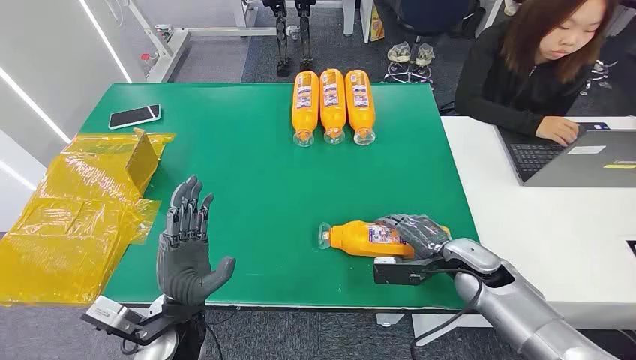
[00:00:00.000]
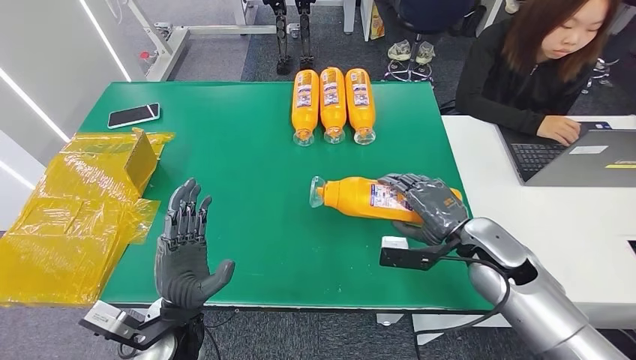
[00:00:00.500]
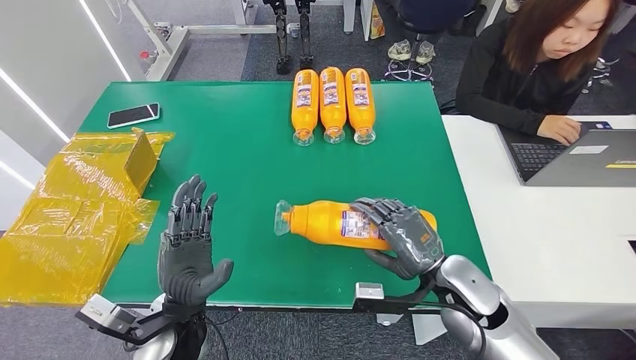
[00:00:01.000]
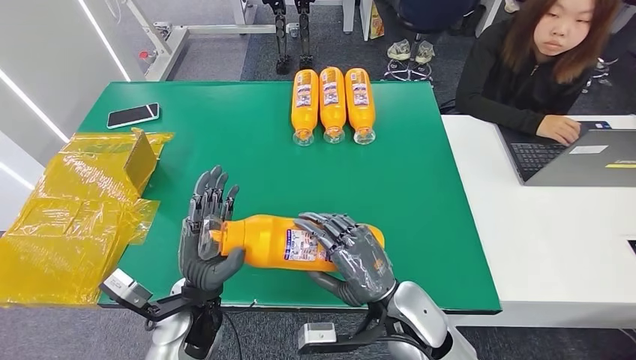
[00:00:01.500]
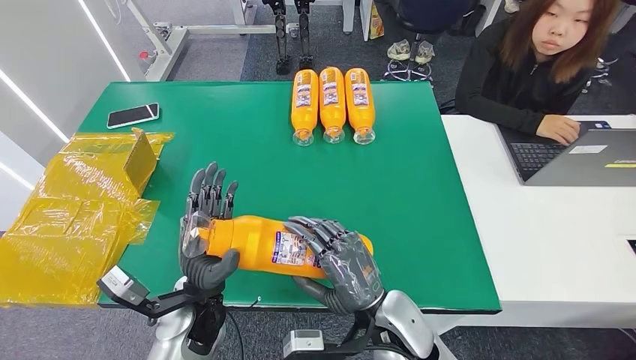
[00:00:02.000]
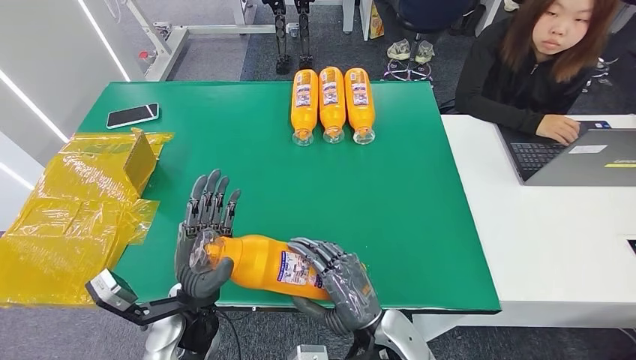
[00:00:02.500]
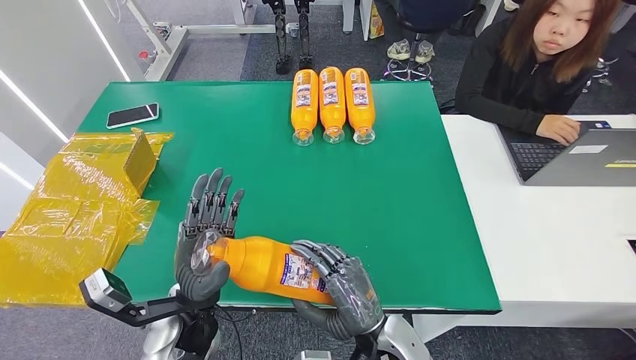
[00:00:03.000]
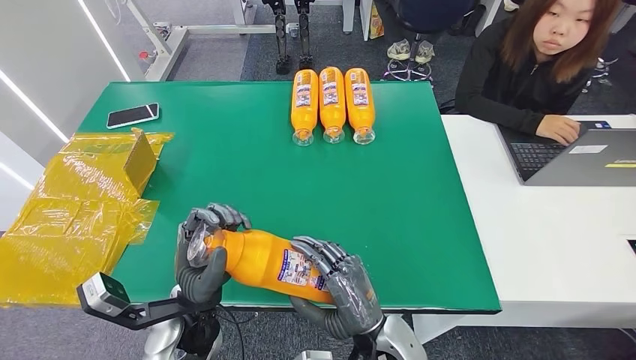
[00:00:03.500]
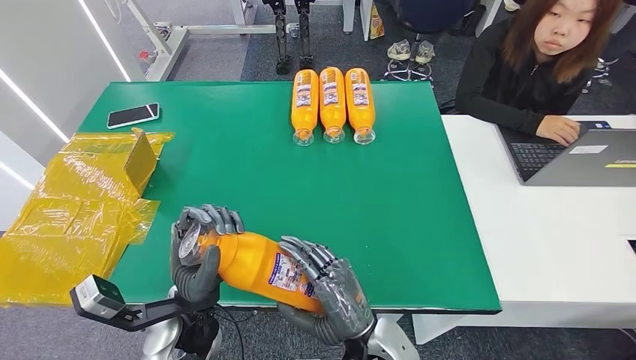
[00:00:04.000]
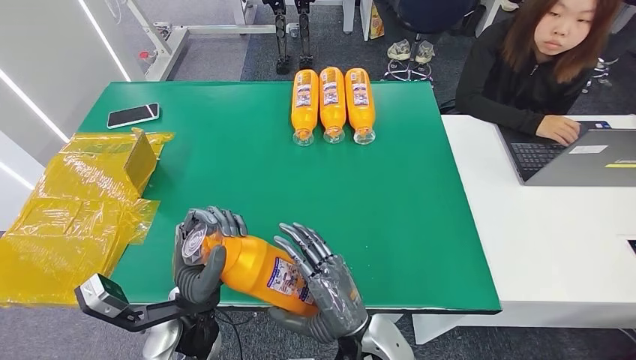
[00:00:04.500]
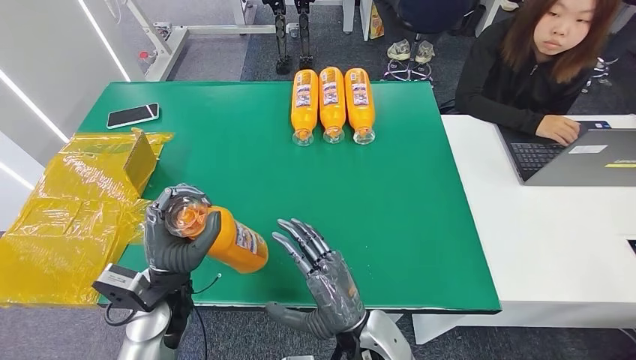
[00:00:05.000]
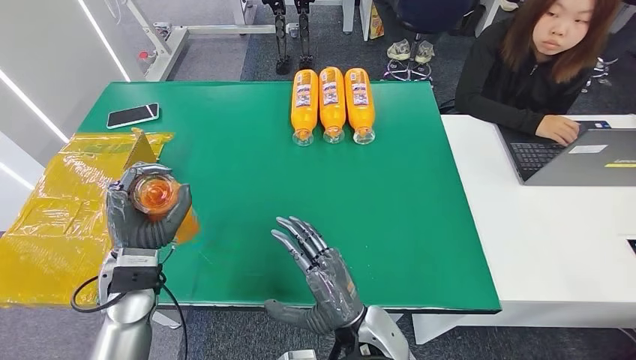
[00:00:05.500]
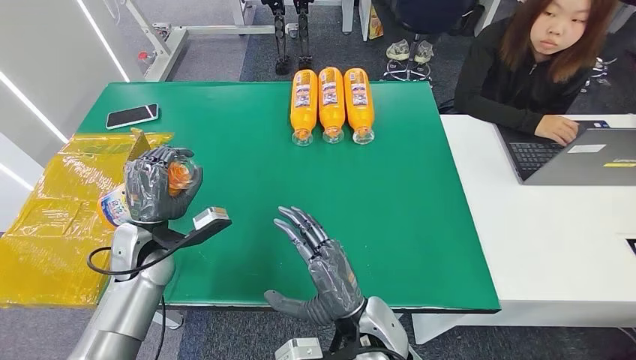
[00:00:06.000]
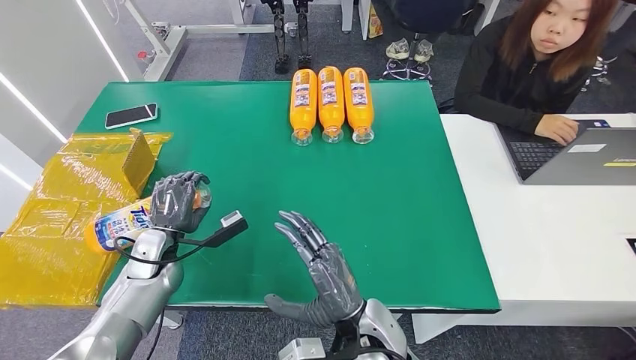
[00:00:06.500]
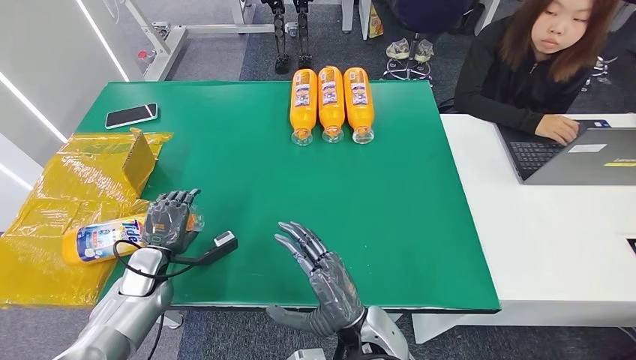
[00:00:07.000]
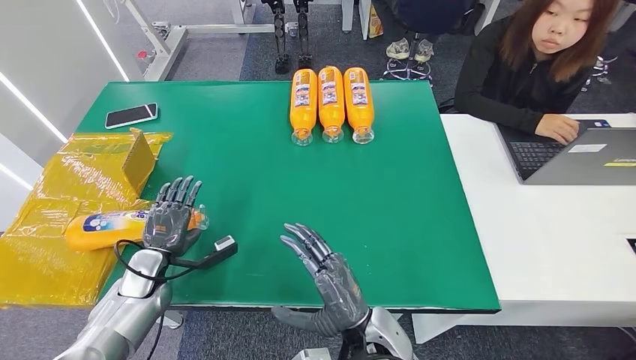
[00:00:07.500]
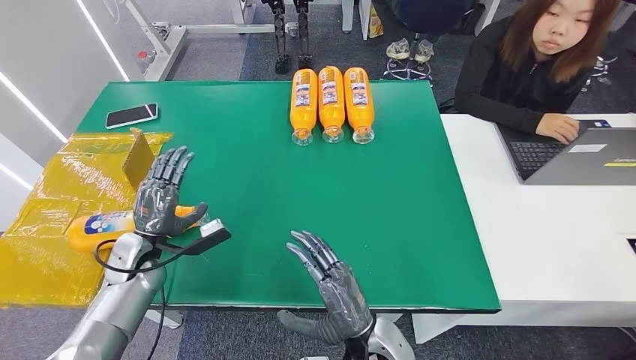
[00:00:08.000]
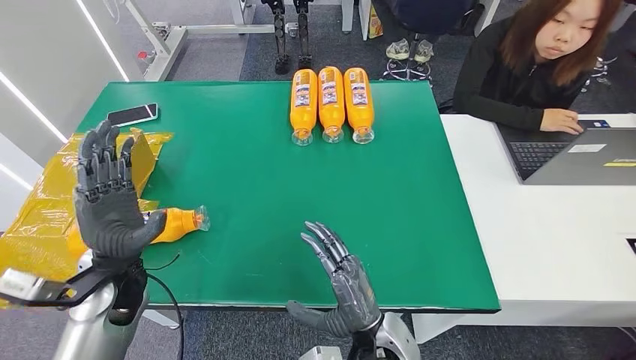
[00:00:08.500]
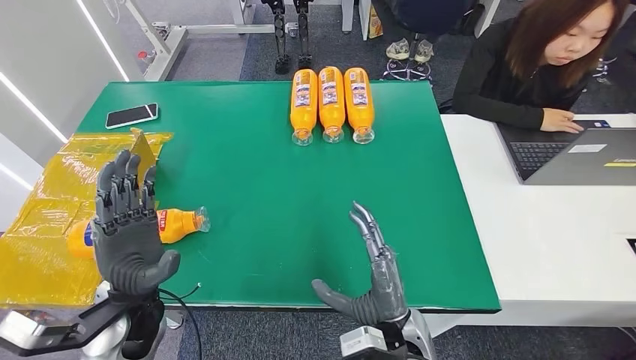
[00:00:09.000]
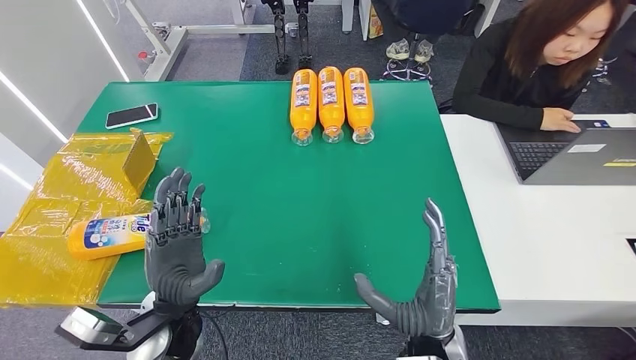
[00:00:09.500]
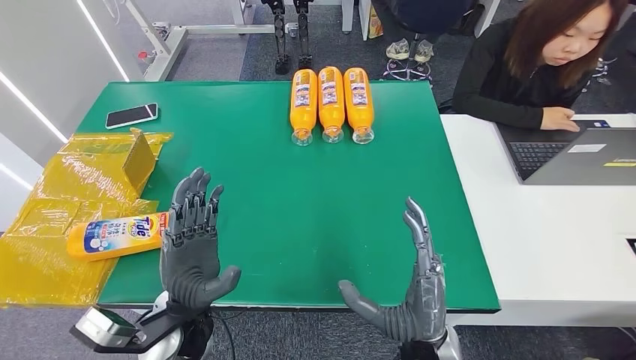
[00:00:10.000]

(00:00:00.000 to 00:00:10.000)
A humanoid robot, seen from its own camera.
Step, 00:00:00.000 - 00:00:03.000: Pick up the bottle from the table.
Step, 00:00:03.500 - 00:00:10.000: Turn the bottle to the front side.
00:00:02.000 - 00:00:04.000: The hands move only a little.
00:00:04.000 - 00:00:06.000: The left hand moves to the left and forward, roughly 20 cm.
00:00:06.000 - 00:00:08.000: The left hand is displaced to the left and downward by approximately 10 cm.
00:00:08.000 - 00:00:10.000: The left hand heads to the right and backward, covering approximately 20 cm; the right hand goes approximately 5 cm upward.
